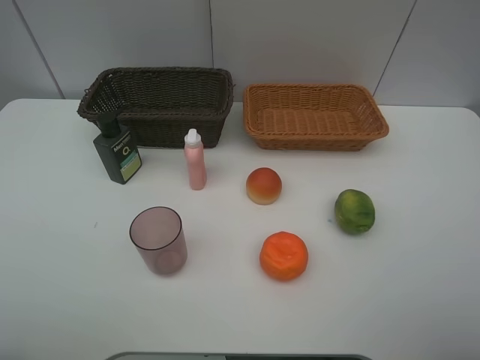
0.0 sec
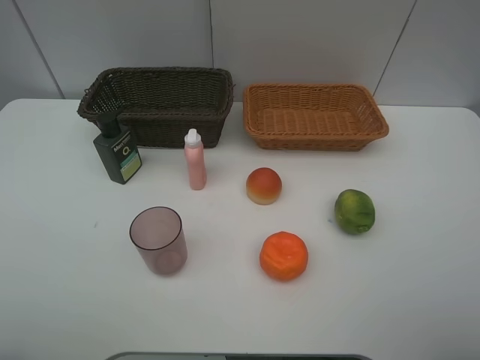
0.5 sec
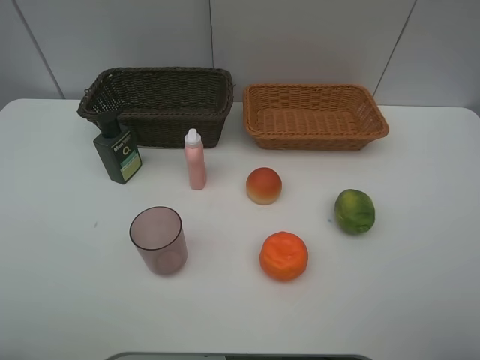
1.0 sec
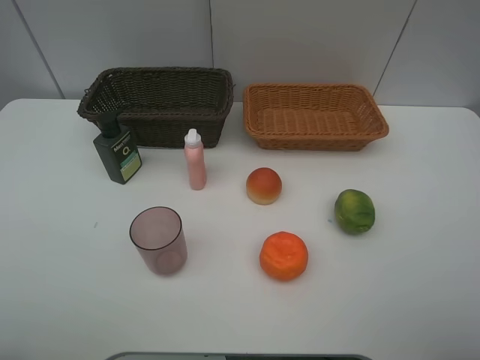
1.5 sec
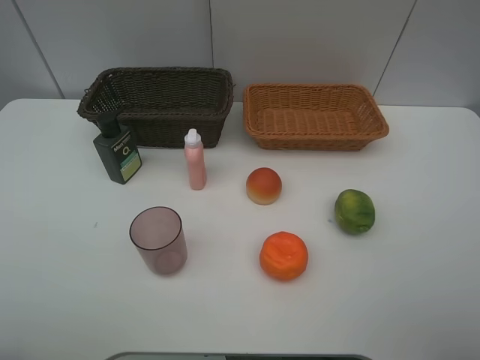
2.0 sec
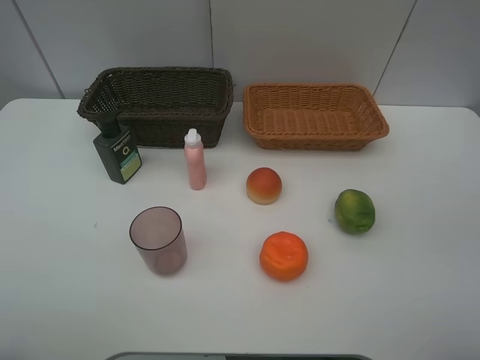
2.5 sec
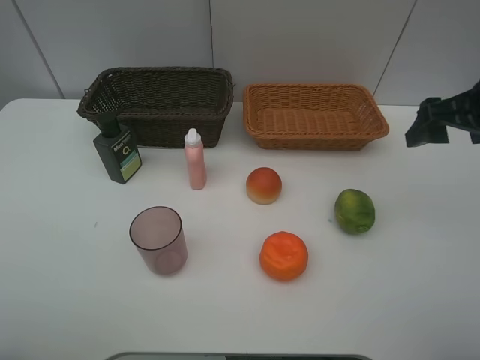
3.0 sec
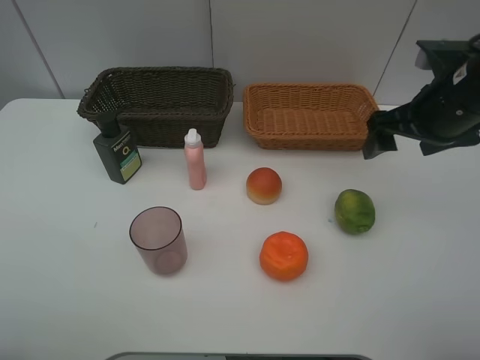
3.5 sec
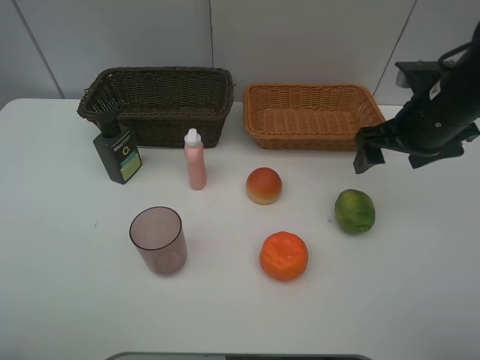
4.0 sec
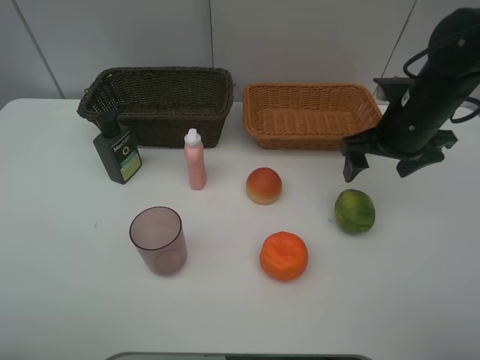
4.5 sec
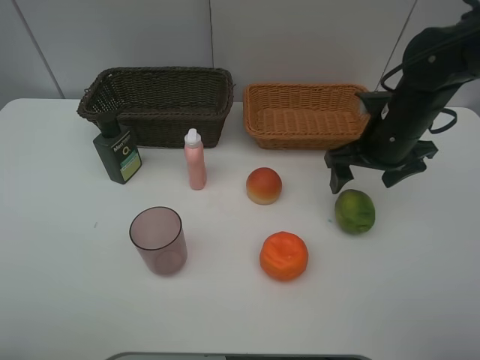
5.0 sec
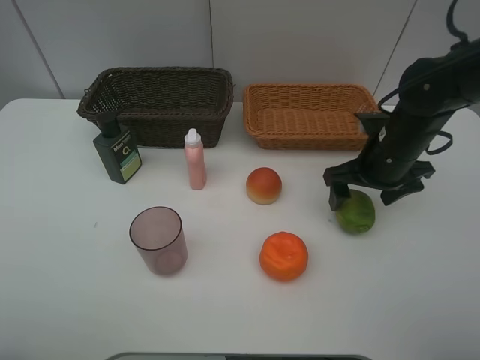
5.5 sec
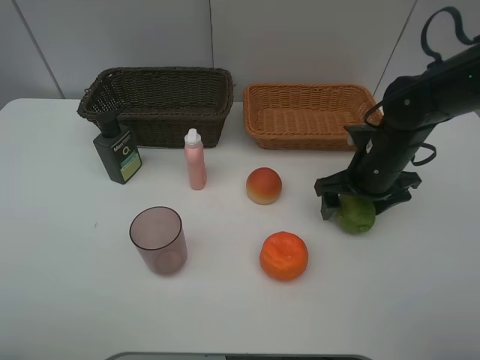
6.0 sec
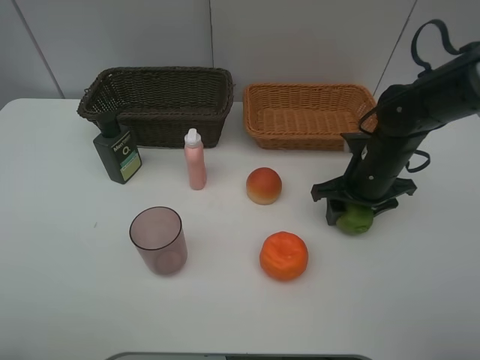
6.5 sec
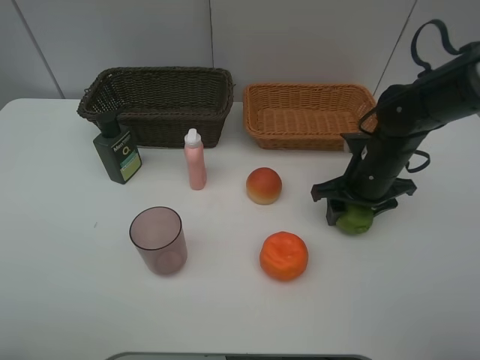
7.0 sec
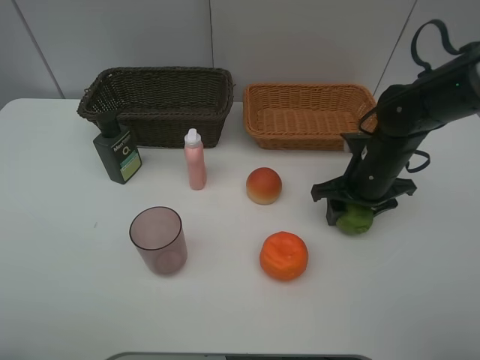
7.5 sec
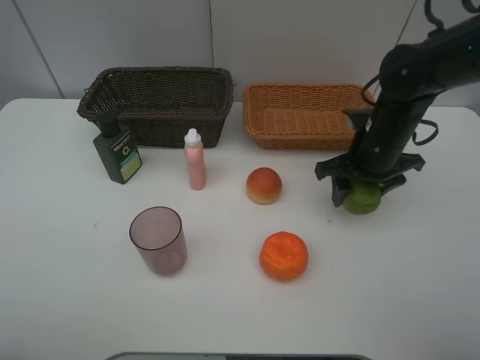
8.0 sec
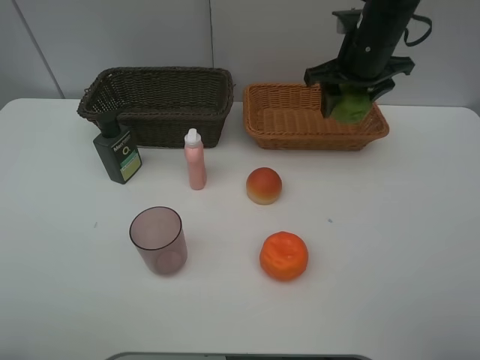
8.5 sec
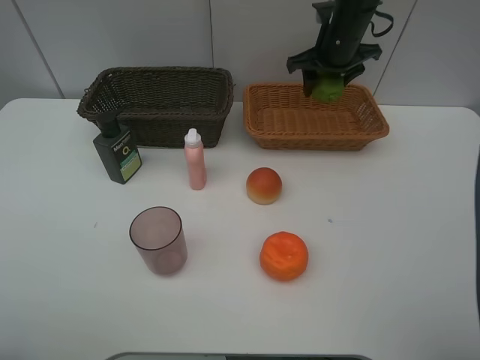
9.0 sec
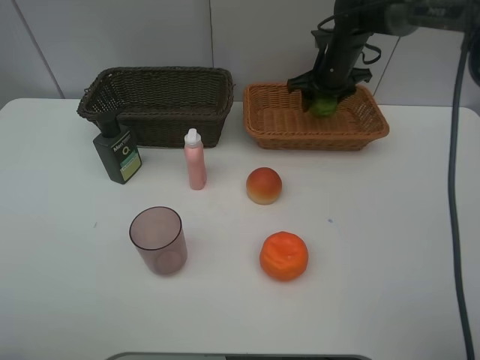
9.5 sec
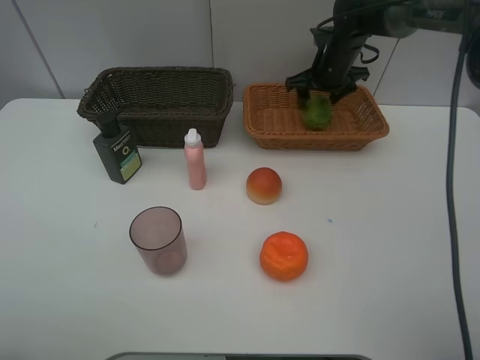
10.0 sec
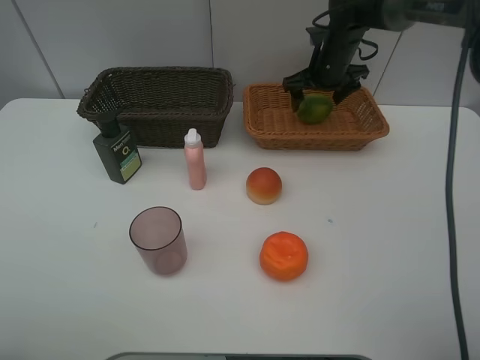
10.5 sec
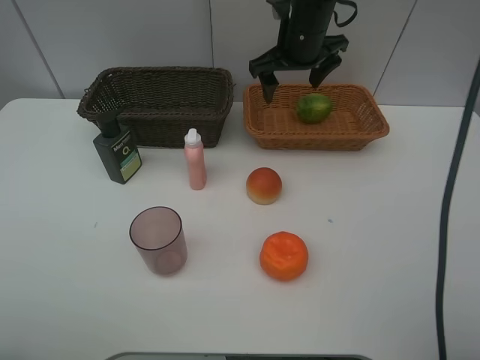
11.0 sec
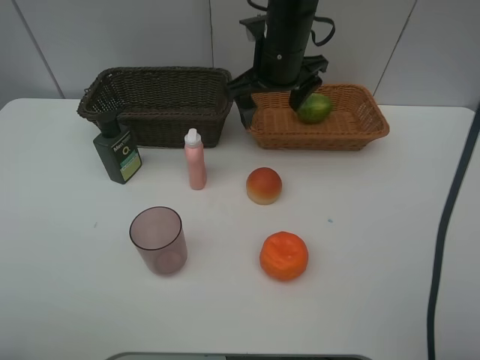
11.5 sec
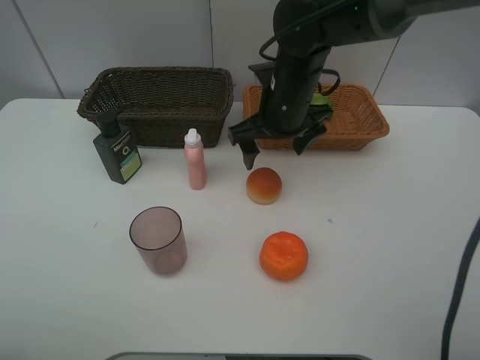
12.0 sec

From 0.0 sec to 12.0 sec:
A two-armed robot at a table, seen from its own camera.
Task of the whole recording: place multiple objects separately in different baskets.
From 2.0 sec to 4.0 sec: The right gripper goes some 25 cm forward.
From 4.0 sec to 6.0 sec: The right gripper goes approximately 10 cm downward.
From 6.0 sec to 8.0 sec: The right gripper closes its fingers.
From 8.0 sec to 10.0 sec: The right gripper is displaced forward by roughly 20 cm, and opens its fingers.
From 10.0 sec to 12.0 sec: The right gripper moves backward and to the left, about 20 cm, and opens.

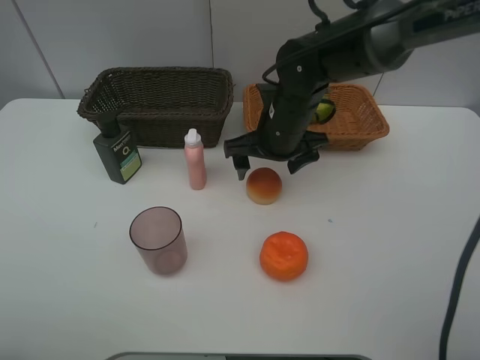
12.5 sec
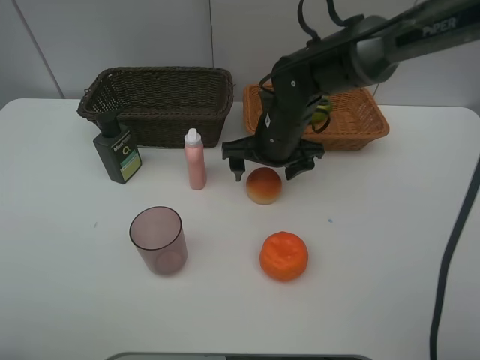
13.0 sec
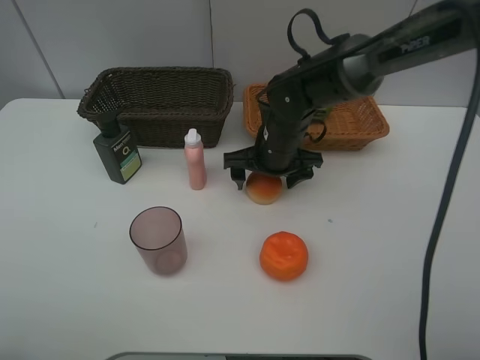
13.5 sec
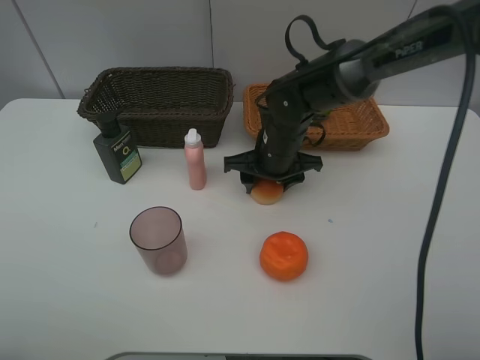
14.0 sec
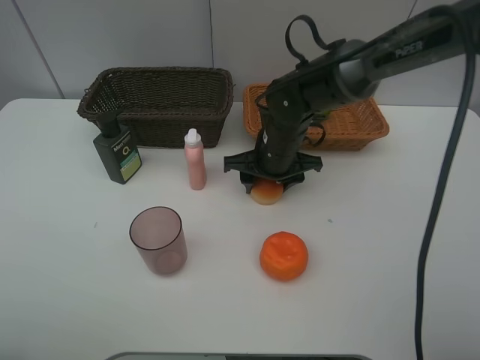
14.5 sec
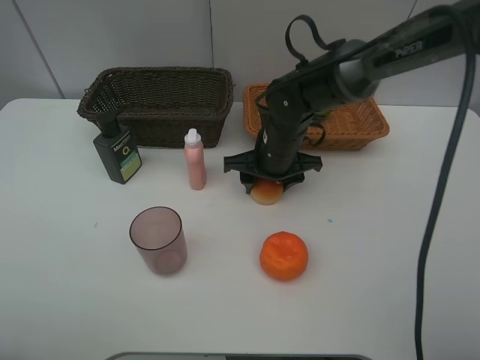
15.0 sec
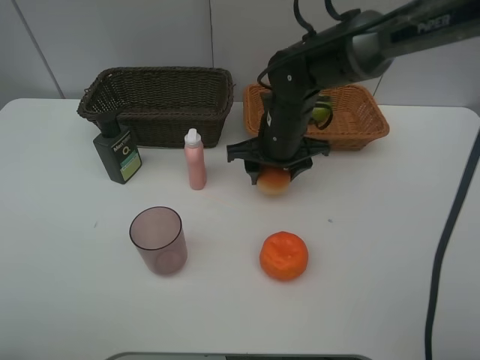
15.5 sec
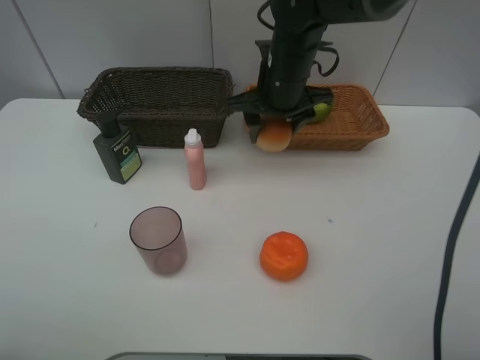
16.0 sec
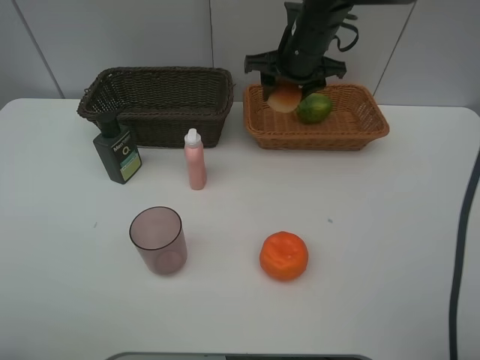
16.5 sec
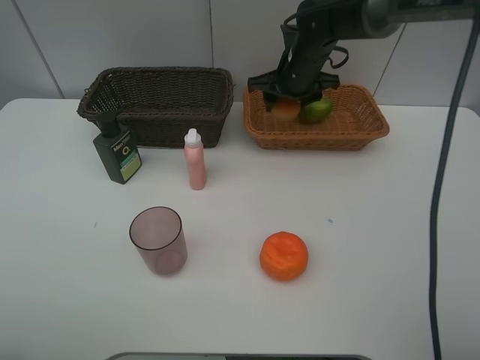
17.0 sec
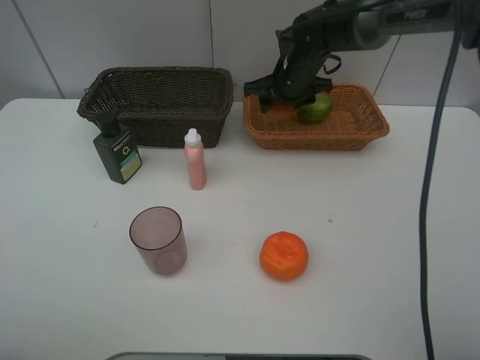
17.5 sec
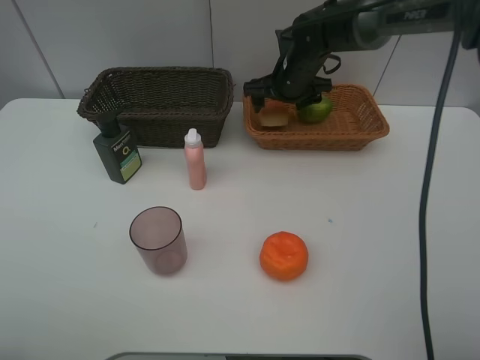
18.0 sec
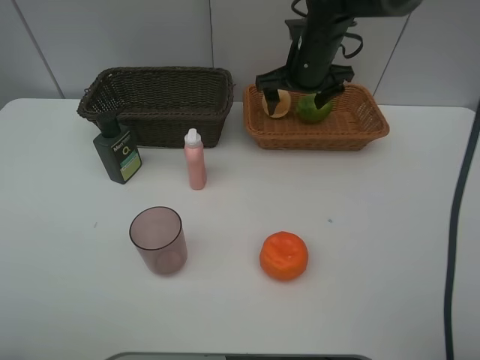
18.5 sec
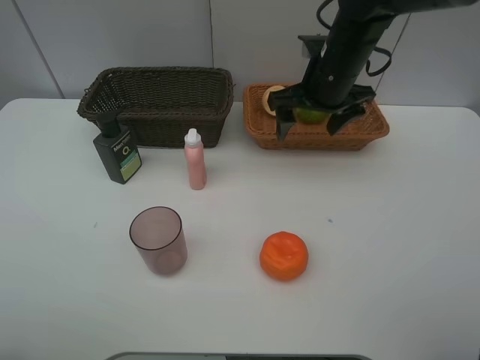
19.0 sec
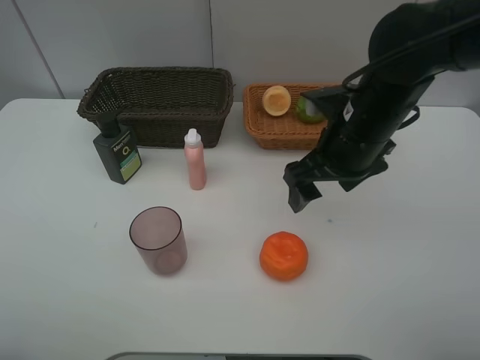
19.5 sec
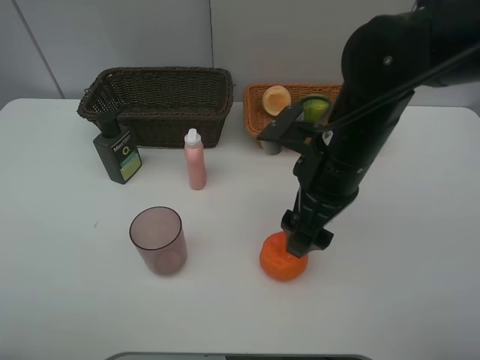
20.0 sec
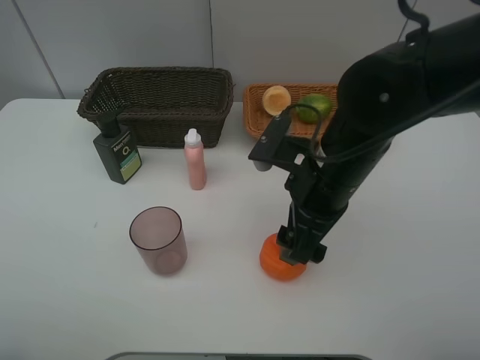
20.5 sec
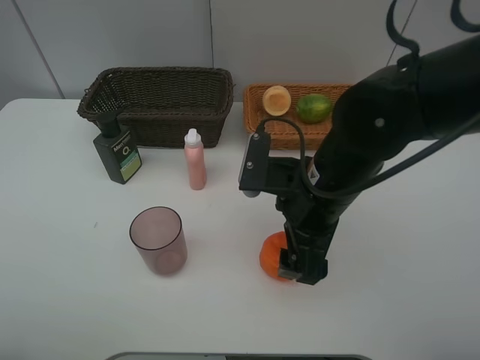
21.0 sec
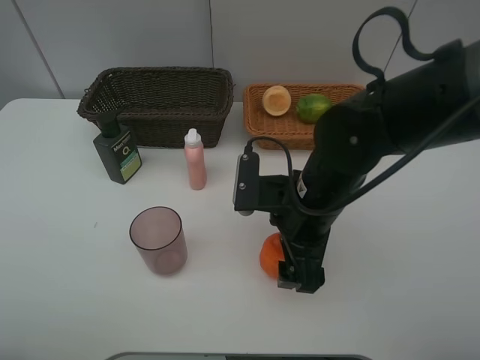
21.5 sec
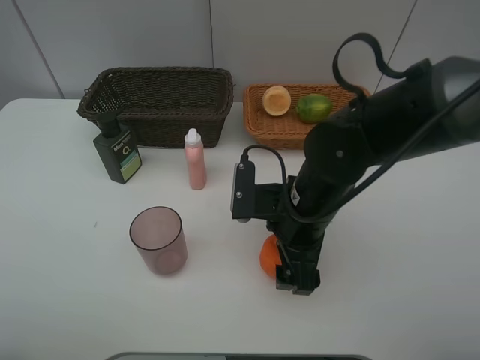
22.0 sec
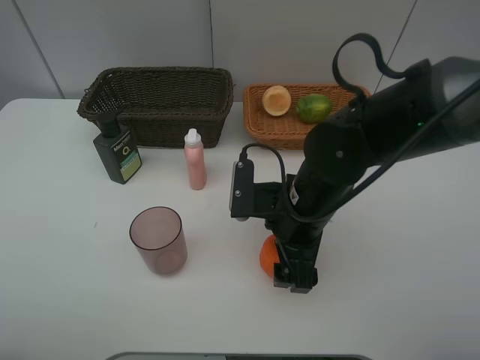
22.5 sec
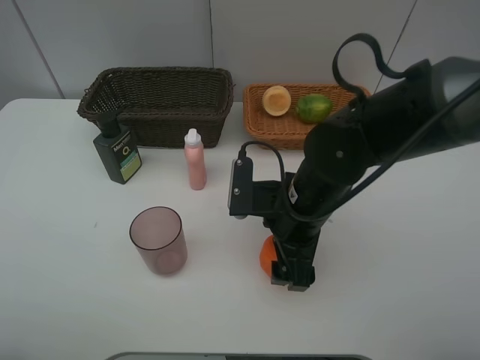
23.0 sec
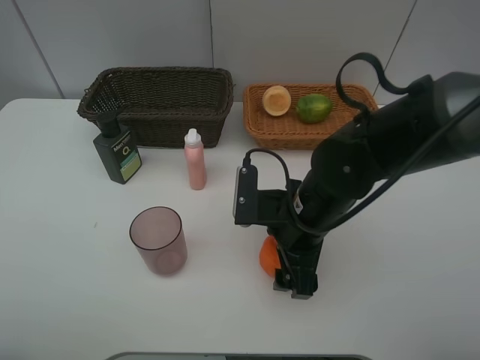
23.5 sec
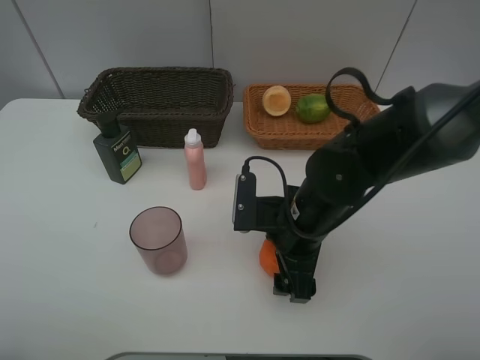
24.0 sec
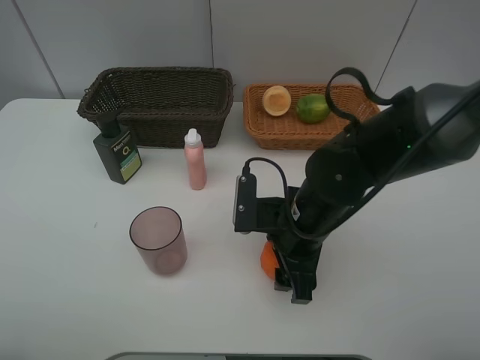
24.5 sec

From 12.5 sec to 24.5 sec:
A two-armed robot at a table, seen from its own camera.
Task of the whole recording: place multiple objects separately in different baskets.
From 12.5 sec to 14.5 sec: The right gripper closes its fingers.
From 14.5 sec to 16.5 sec: The right gripper goes about 15 cm upward and forward.
From 16.5 sec to 18.5 sec: The right gripper opens its fingers.
From 18.5 sec to 20.5 sec: The right gripper goes about 20 cm backward.
From 20.5 sec to 22.5 sec: The right gripper goes about 5 cm downward.
From 22.5 sec to 24.5 sec: The right gripper closes.

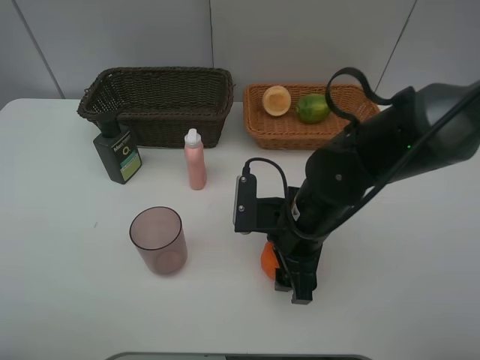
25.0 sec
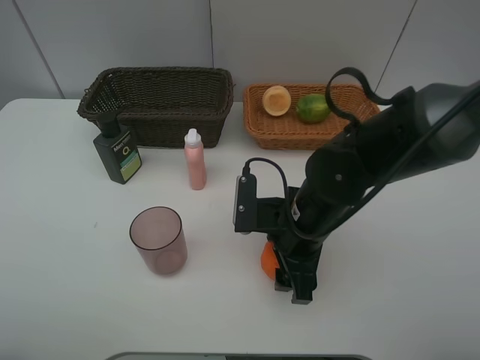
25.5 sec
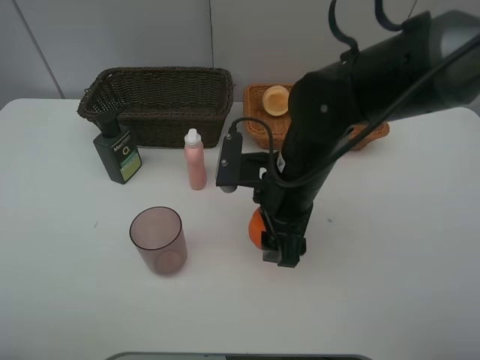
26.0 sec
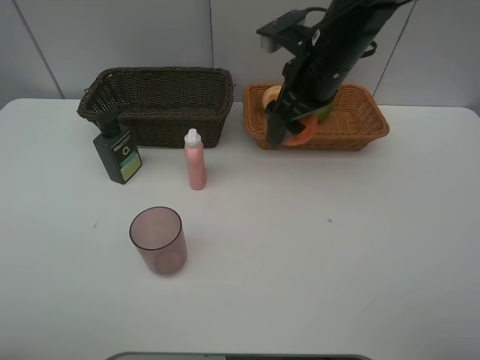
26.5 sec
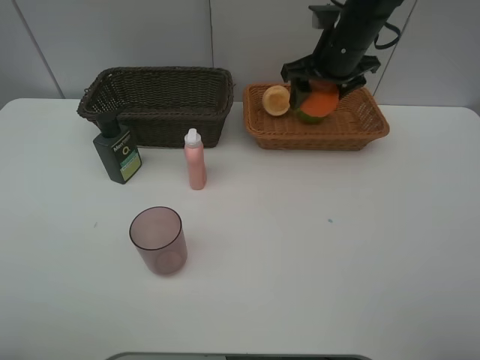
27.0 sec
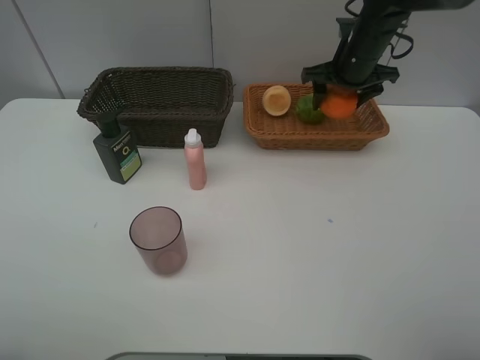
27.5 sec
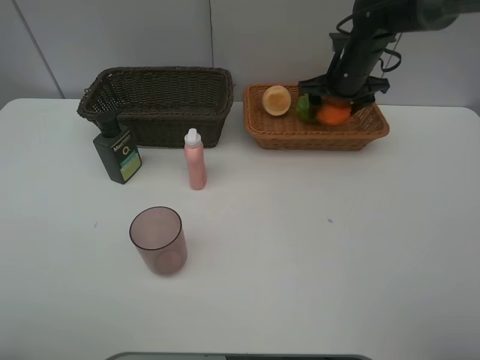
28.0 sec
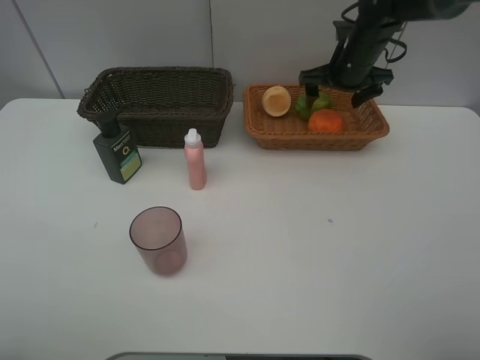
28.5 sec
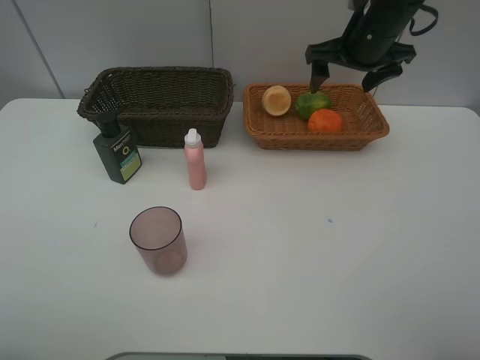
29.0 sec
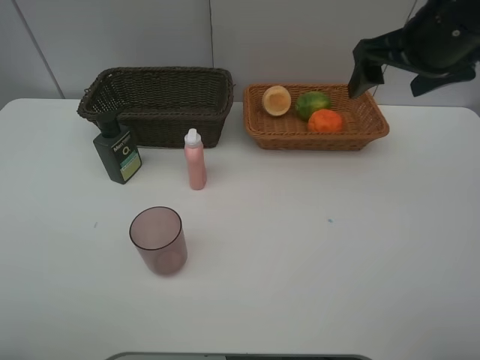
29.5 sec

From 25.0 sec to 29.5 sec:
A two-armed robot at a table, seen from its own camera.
Task of the whole recording: place multiple objects separately in different baskets.
From 25.0 sec to 27.0 sec: The right gripper goes about 25 cm forward and upward.
From 27.0 sec to 29.5 sec: The right gripper goes approximately 20 cm backward, upward and to the right, and opens up.
